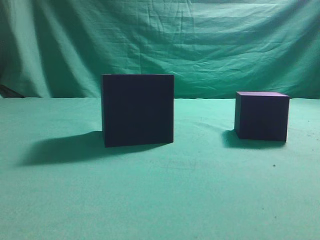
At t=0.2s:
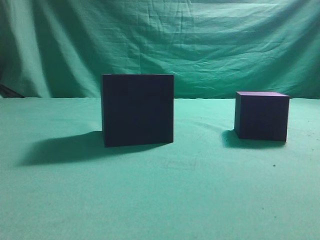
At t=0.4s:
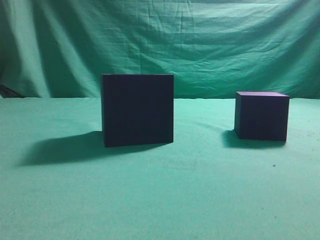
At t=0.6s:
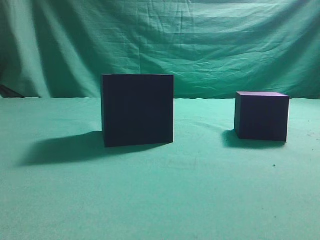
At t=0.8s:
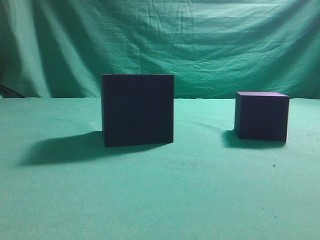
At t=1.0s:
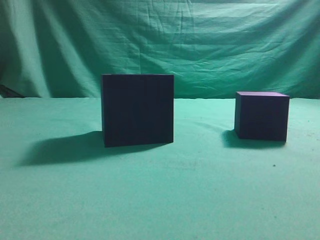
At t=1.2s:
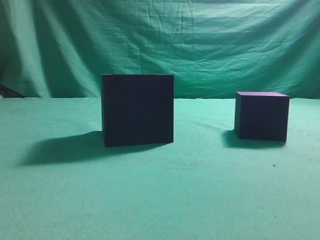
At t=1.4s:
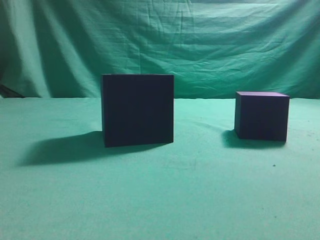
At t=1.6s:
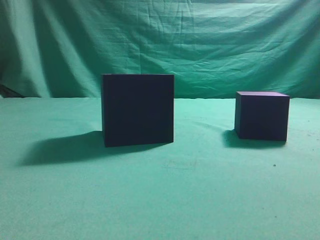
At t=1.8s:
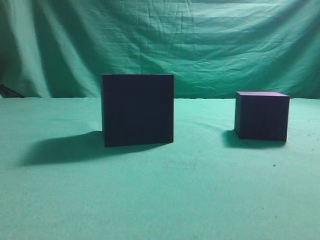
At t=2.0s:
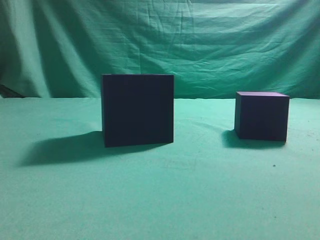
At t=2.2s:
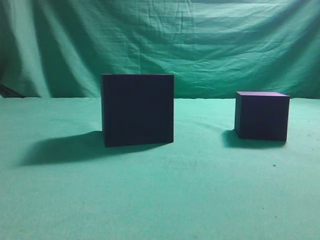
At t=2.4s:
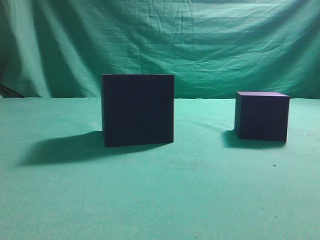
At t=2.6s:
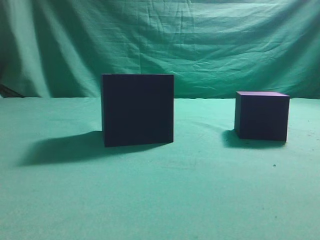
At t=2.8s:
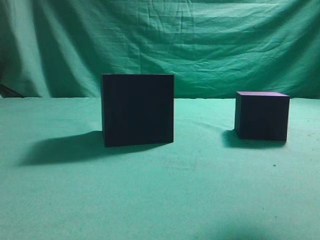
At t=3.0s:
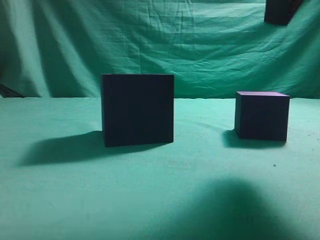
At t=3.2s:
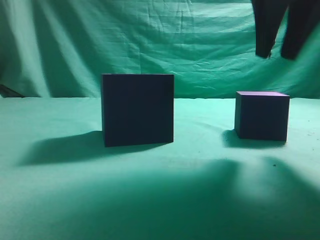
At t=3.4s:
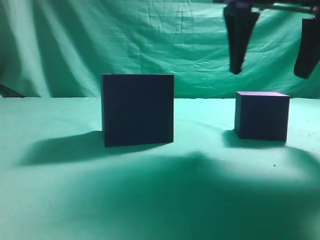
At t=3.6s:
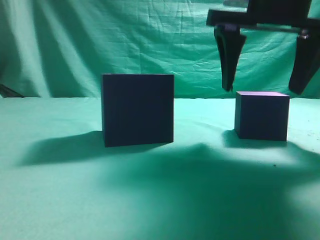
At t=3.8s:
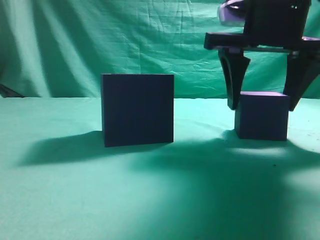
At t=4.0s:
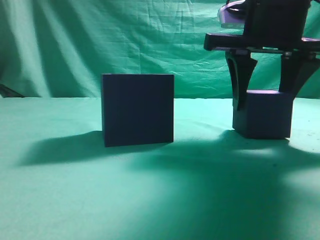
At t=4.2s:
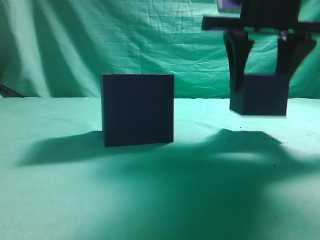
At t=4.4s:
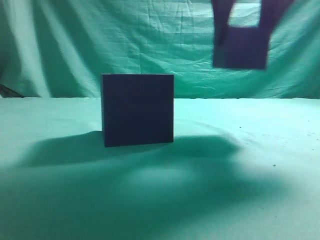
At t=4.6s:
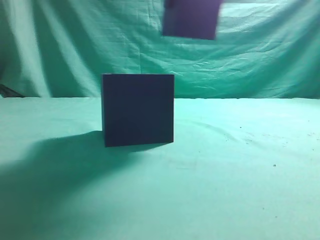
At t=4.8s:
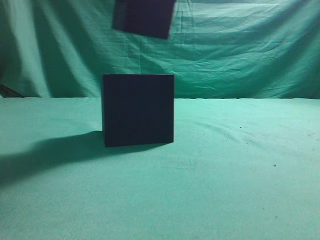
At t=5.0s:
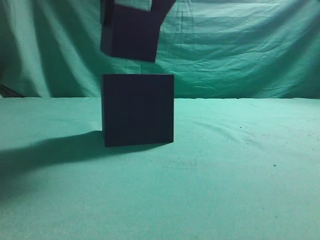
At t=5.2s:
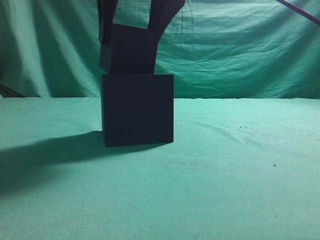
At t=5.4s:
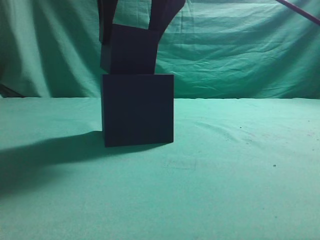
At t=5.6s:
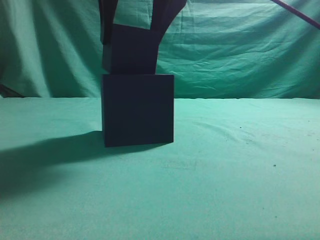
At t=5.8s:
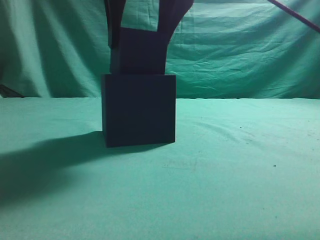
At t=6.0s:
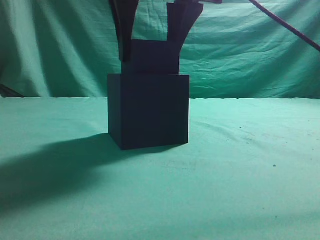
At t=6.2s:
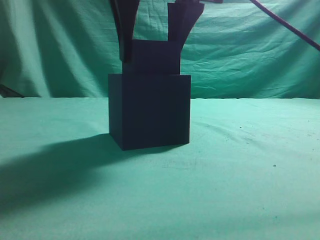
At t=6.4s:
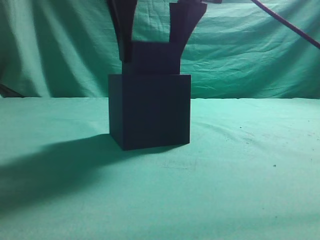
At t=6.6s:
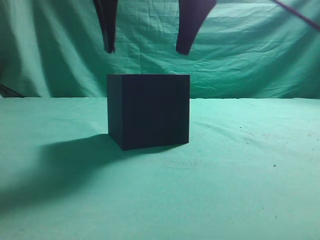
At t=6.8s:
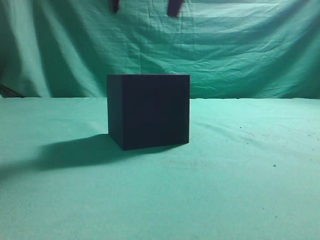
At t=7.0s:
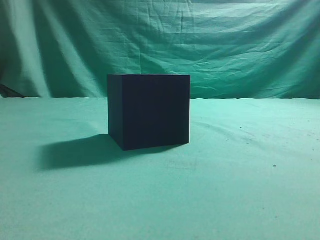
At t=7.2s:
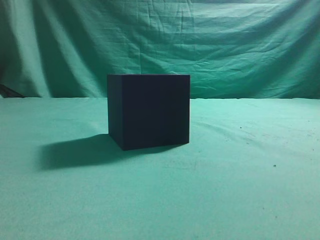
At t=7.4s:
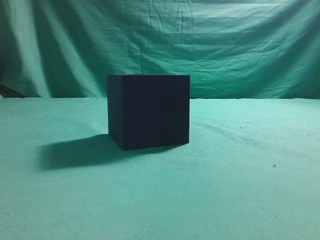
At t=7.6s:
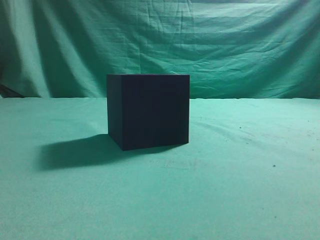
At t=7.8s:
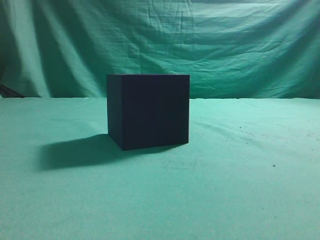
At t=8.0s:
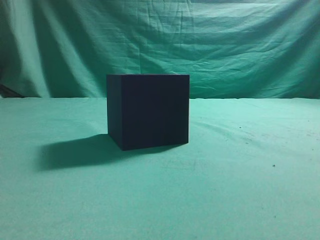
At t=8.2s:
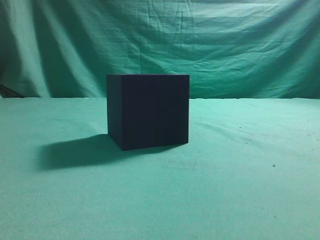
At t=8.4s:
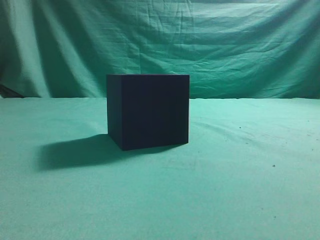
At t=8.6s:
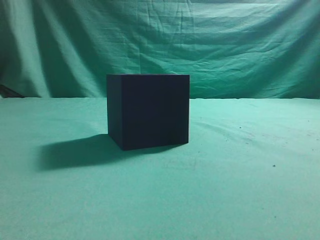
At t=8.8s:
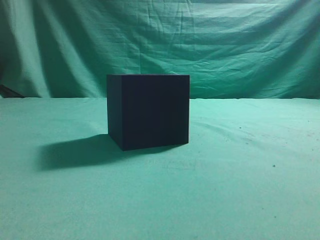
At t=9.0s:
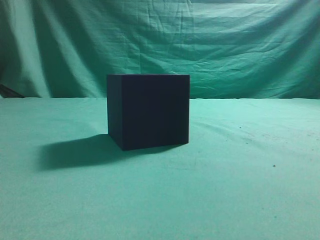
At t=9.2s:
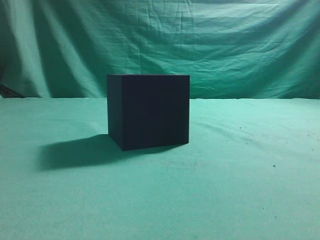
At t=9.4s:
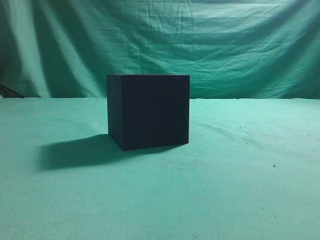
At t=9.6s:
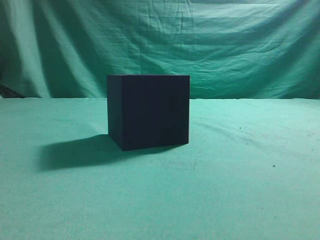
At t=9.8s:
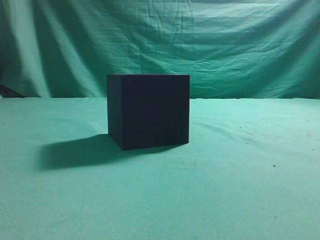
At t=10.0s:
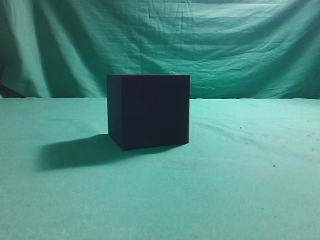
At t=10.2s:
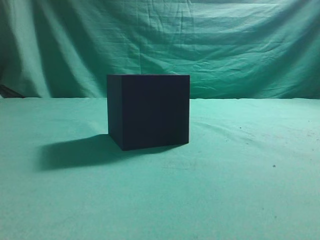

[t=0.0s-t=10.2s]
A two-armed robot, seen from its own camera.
Task of the whole recording: pick up the cube block and place it into the cube groove.
Step, t=0.0s to t=4.2s: Grasp the cube.
Step, t=4.4s to t=6.6s: Place cube into the cube-shaped recess.
t=1.4s to t=3.0s: The right gripper is displaced forward, to the left and upward by about 25 cm.
t=3.0s to t=4.4s: The right gripper goes about 5 cm forward, travels downward and back again, approximately 10 cm each way, and opens its fingers.
t=4.4s to t=5.8s: The right gripper moves to the left, about 10 cm.
t=5.8s to t=7.2s: The right gripper shifts roughly 15 cm upward, and closes.
